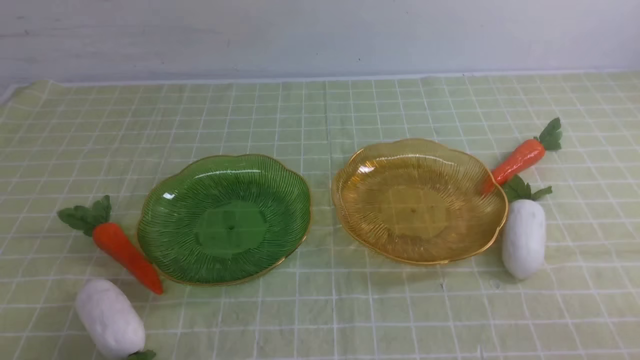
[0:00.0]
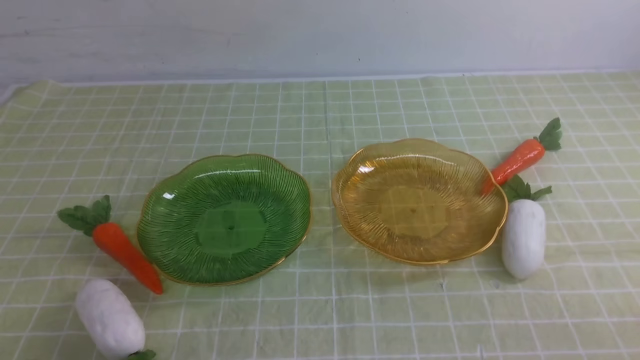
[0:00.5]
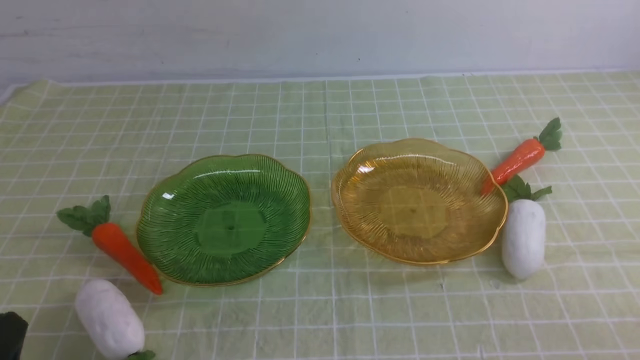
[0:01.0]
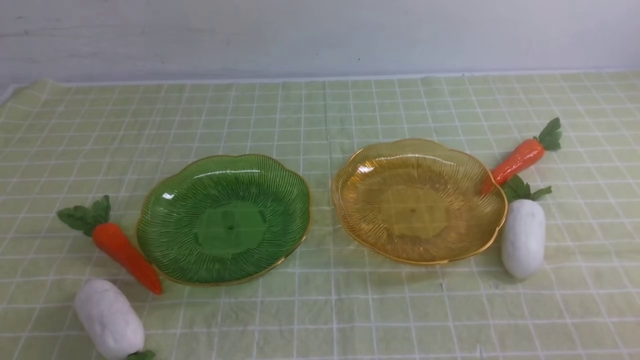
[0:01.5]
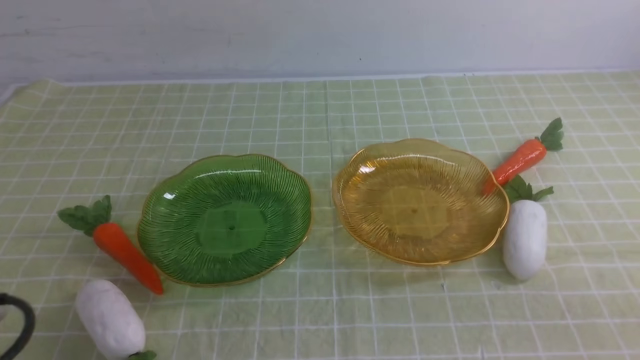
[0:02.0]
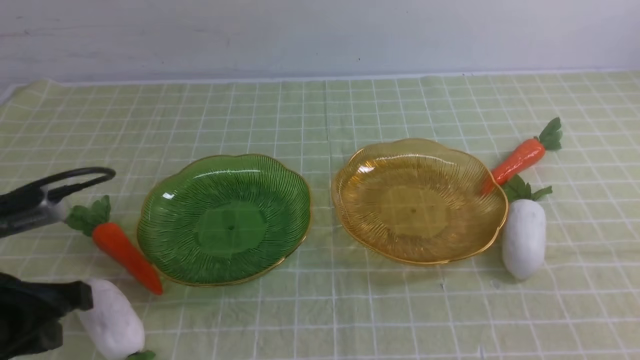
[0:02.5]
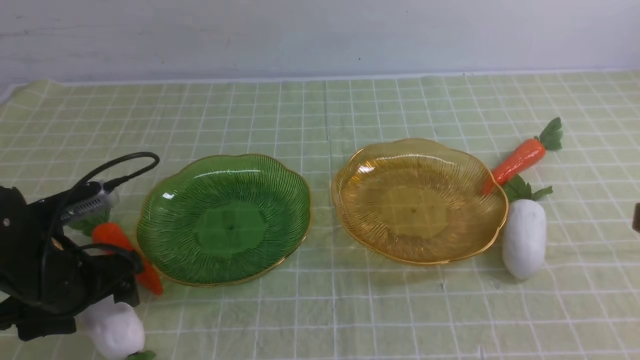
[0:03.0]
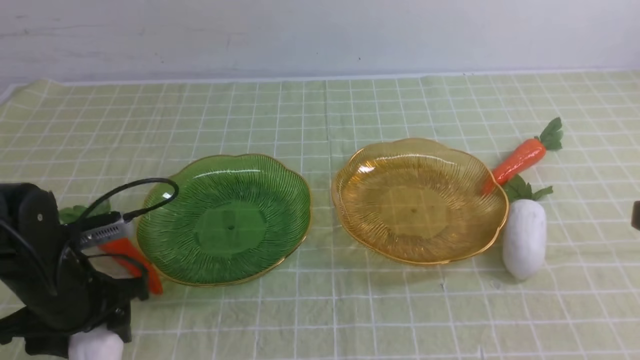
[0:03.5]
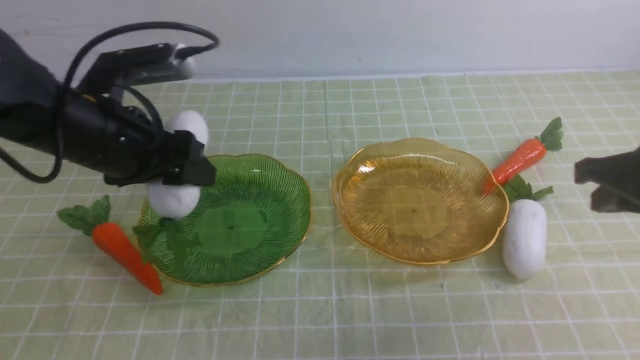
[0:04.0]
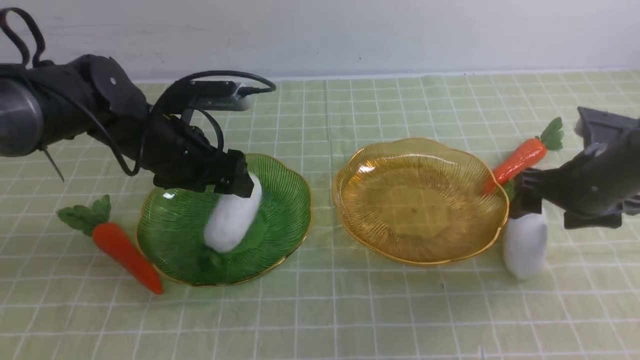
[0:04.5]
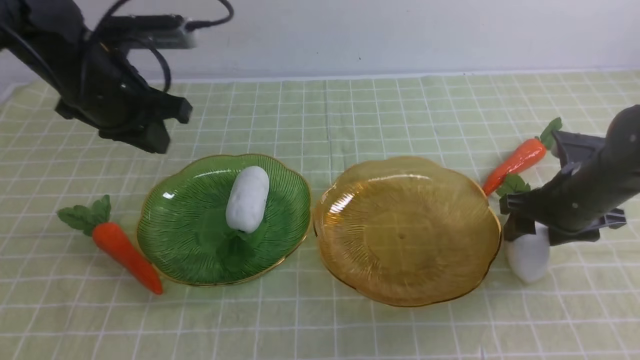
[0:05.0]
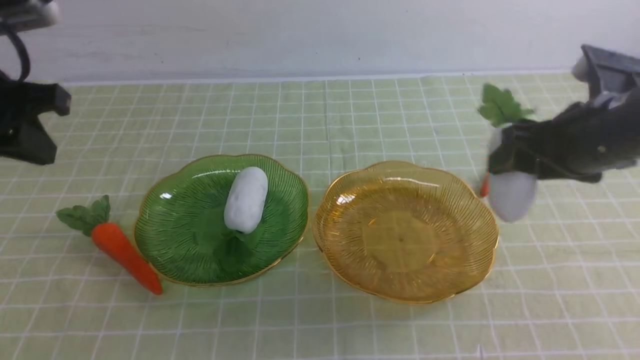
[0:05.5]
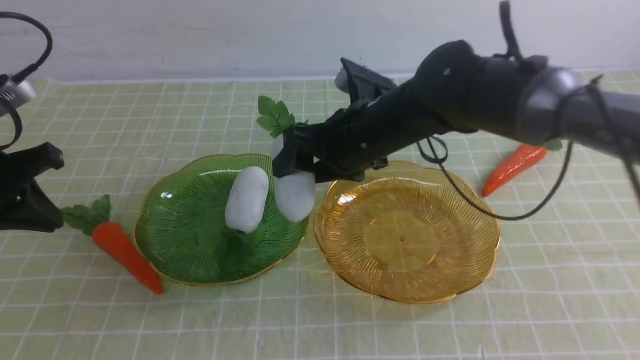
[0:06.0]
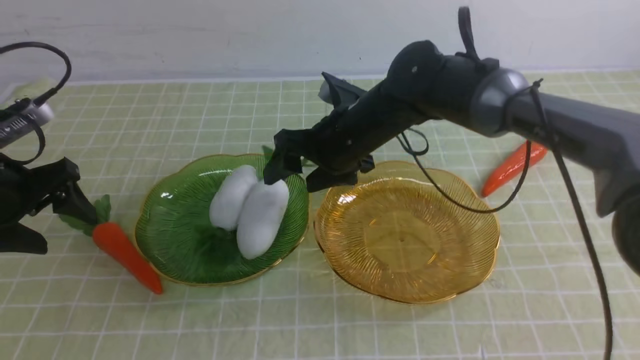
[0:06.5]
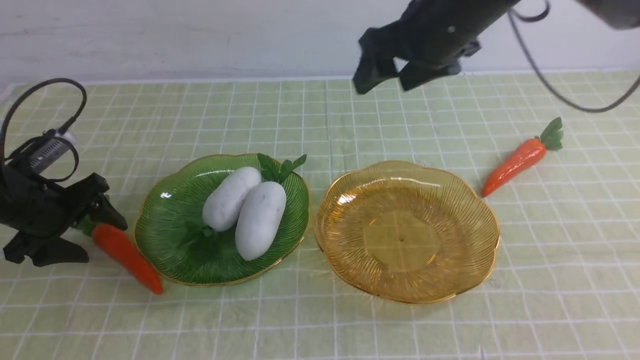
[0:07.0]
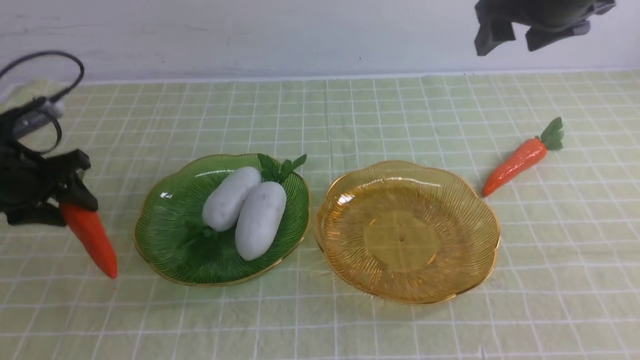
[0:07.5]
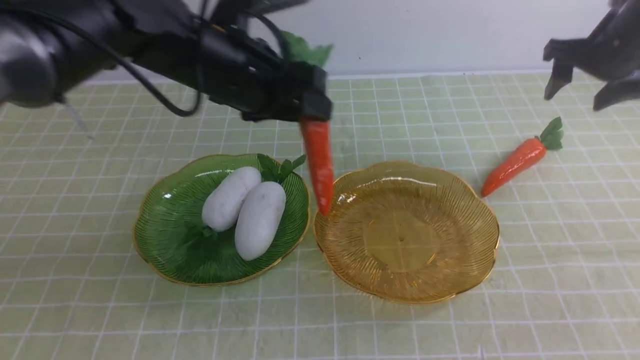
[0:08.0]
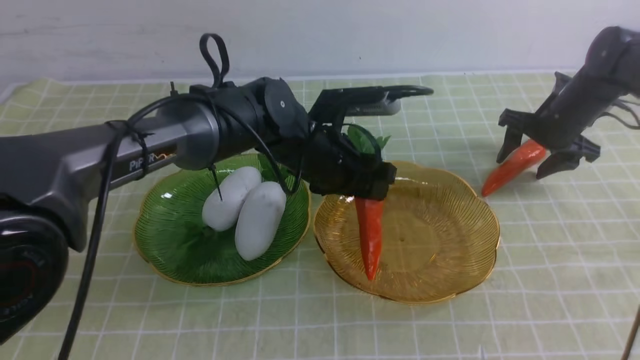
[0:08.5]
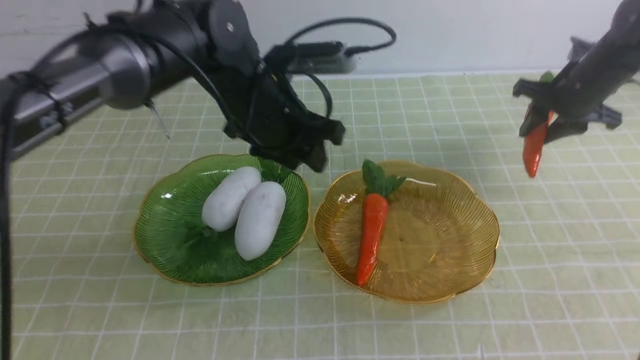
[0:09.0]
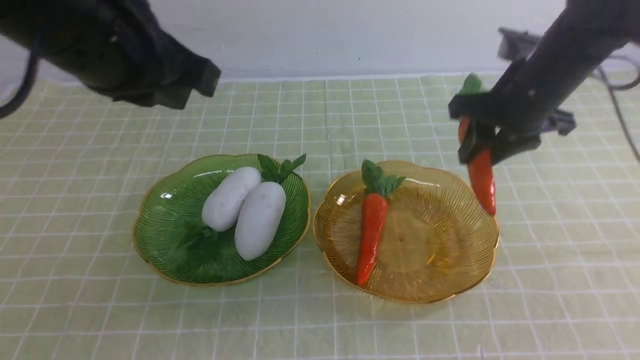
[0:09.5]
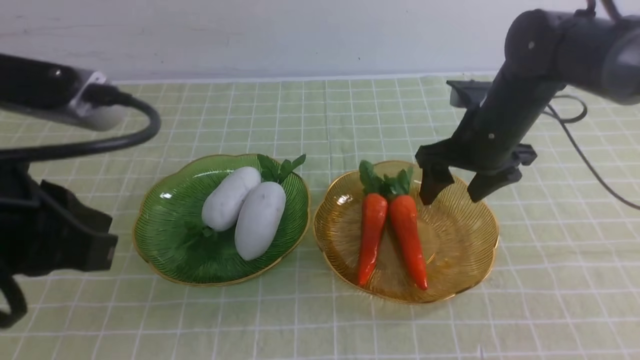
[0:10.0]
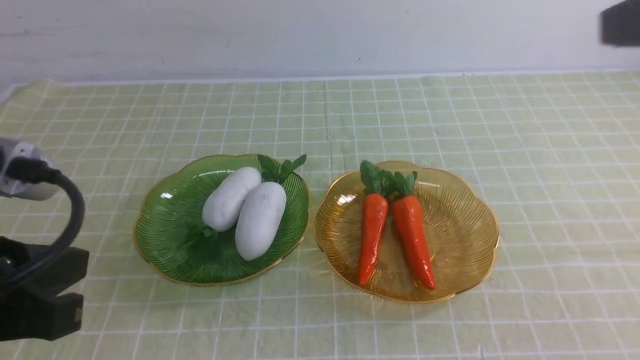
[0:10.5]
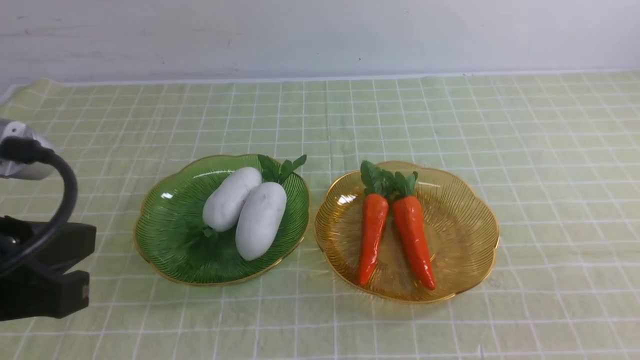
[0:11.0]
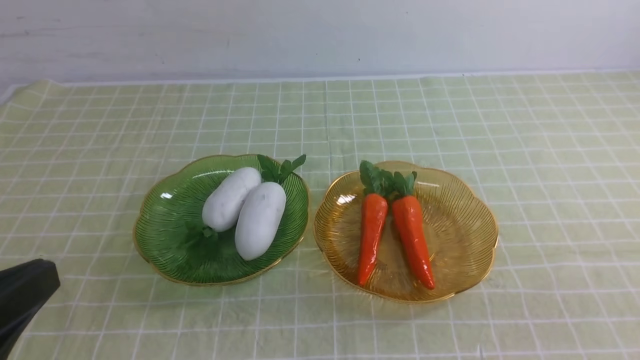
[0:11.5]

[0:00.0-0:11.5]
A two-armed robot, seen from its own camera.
Step, 0:00.0 to 0:05.0: use the left arm to grab a radish and put it into the left plate.
Step, 0:05.5 to 0:06.5: use the right arm to grab a radish and put it into the left plate.
Step, 0:07.5 to 0:09.0: use the left arm to grab a carrot and put it into the right plate.
Step, 0:09.5 to 0:10.0: use the right arm to grab a carrot and put it into the right plate.
0:02.0 to 0:04.0: Both grippers travel together forward, some 20 cm. The left gripper opens its fingers.
0:04.0 to 0:06.0: The right gripper travels to the left and forward by approximately 25 cm, and opens up. Meanwhile the left gripper is displaced to the left by some 15 cm, and closes.
0:06.0 to 0:07.5: The left gripper is displaced forward by roughly 10 cm, and opens up. Meanwhile the right gripper travels to the right and upward by some 25 cm.
0:07.5 to 0:09.5: The right gripper is displaced downward by roughly 10 cm, and closes; the left gripper goes approximately 25 cm upward, to the right and backward, and closes up.
0:09.5 to 0:11.5: The left gripper shifts approximately 20 cm backward and downward. Meanwhile the right gripper heads backward, covering roughly 40 cm, and closes.

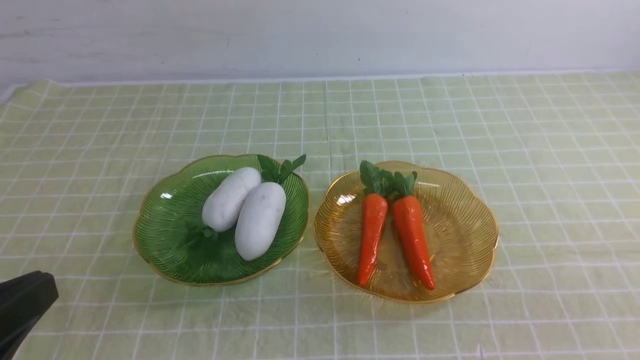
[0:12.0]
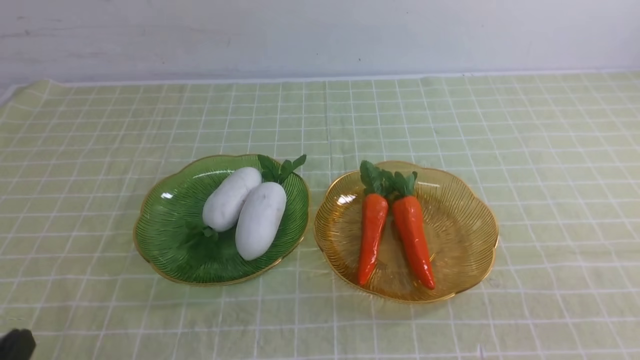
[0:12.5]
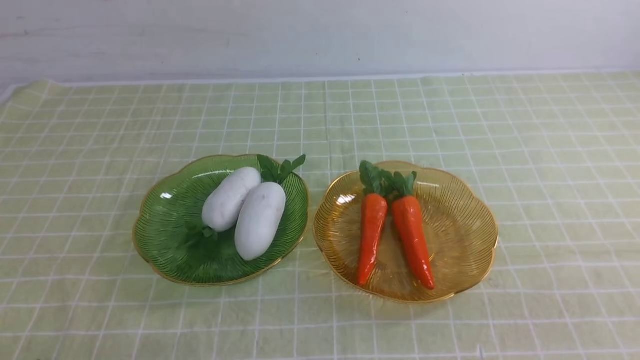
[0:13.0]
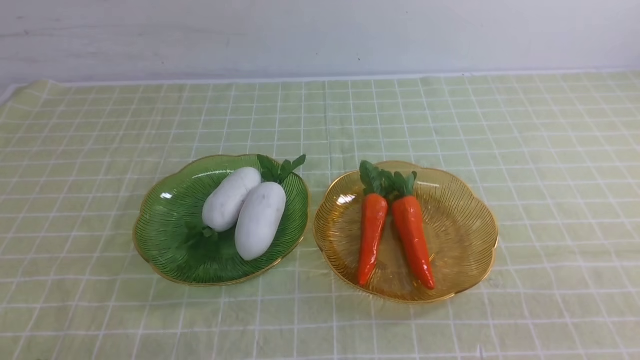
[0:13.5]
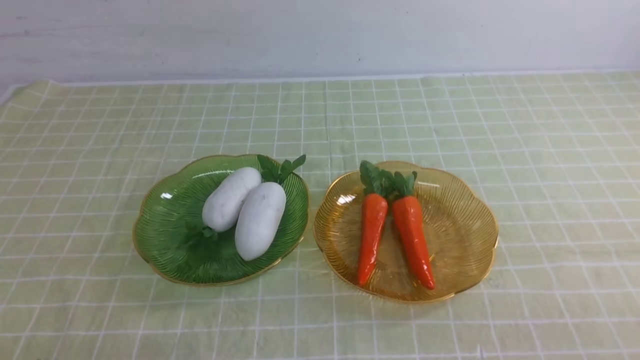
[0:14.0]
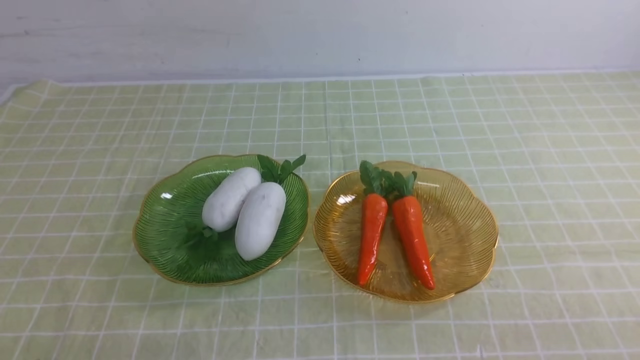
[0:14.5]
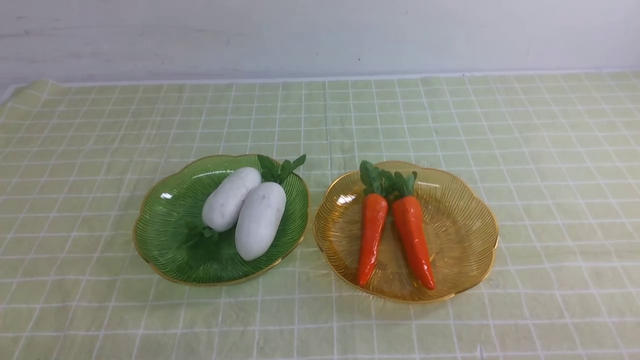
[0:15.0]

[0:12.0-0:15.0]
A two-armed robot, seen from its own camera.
0:12.0 to 0:13.5: The left gripper goes some 15 cm downward.
